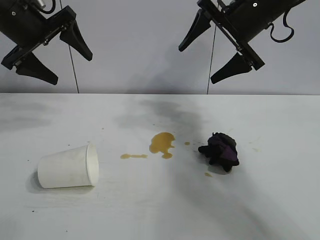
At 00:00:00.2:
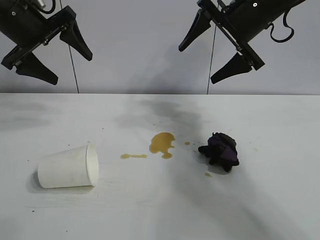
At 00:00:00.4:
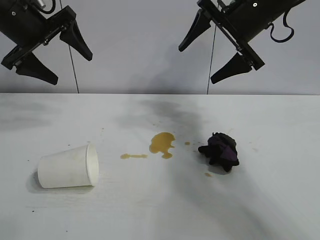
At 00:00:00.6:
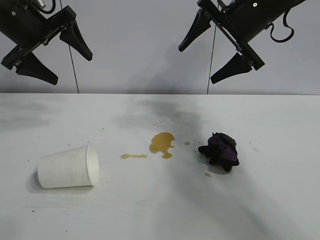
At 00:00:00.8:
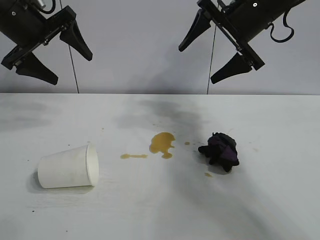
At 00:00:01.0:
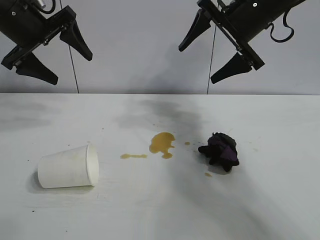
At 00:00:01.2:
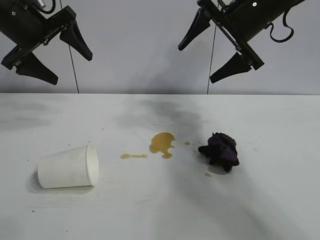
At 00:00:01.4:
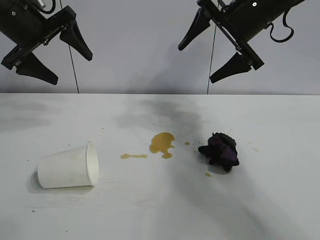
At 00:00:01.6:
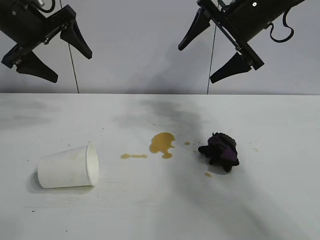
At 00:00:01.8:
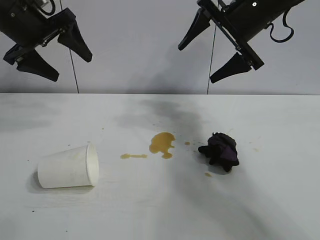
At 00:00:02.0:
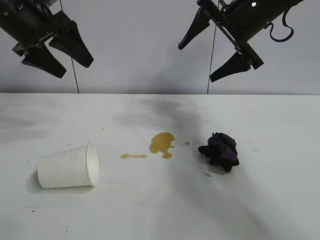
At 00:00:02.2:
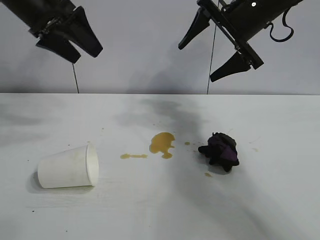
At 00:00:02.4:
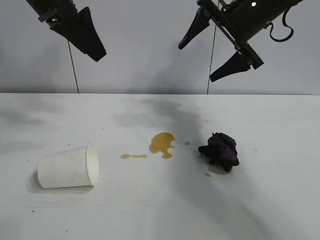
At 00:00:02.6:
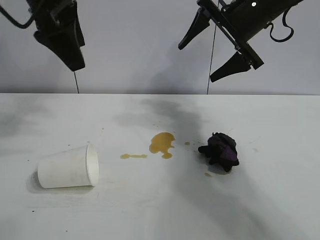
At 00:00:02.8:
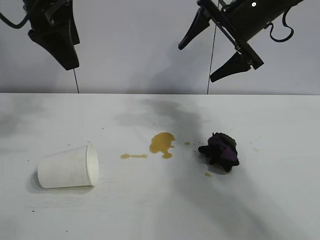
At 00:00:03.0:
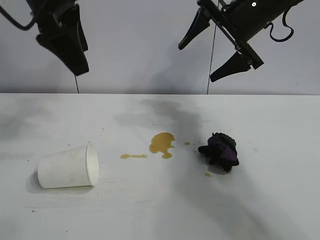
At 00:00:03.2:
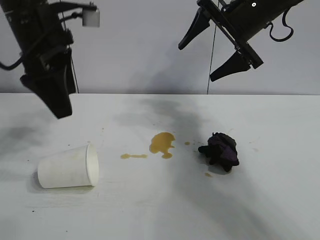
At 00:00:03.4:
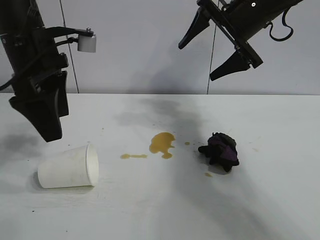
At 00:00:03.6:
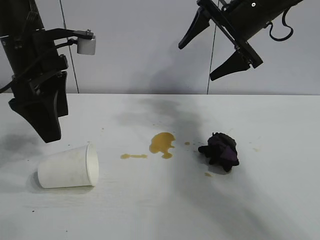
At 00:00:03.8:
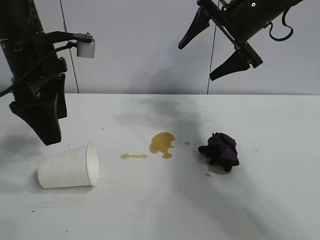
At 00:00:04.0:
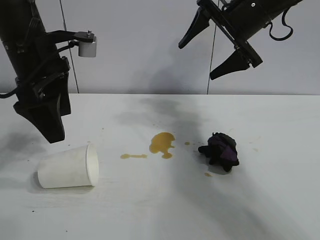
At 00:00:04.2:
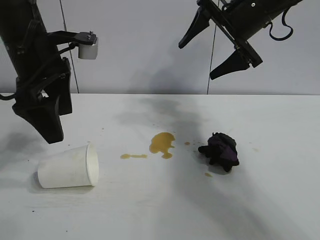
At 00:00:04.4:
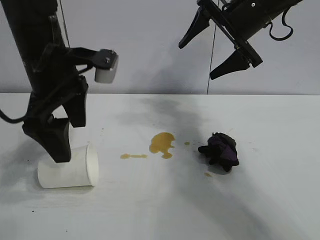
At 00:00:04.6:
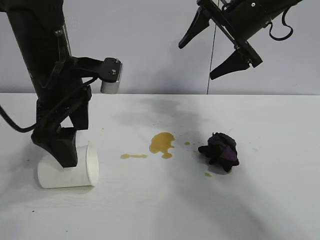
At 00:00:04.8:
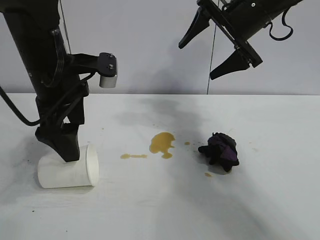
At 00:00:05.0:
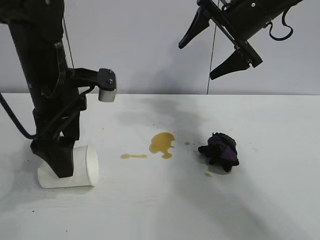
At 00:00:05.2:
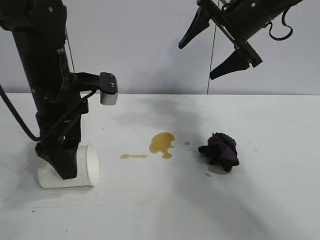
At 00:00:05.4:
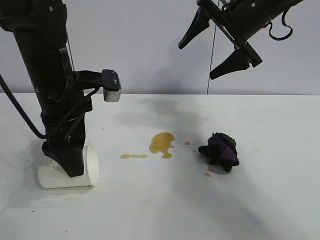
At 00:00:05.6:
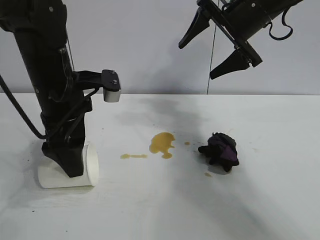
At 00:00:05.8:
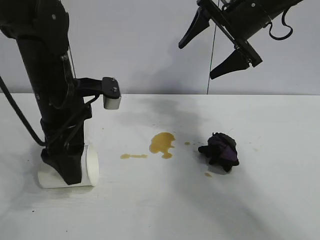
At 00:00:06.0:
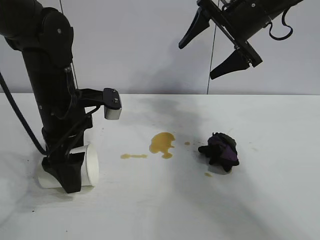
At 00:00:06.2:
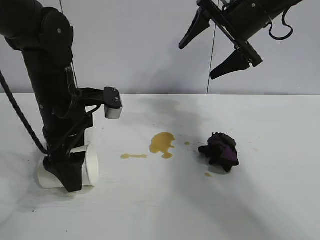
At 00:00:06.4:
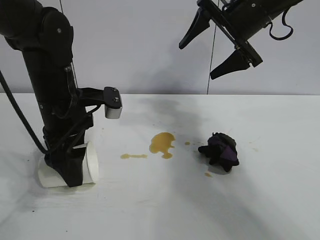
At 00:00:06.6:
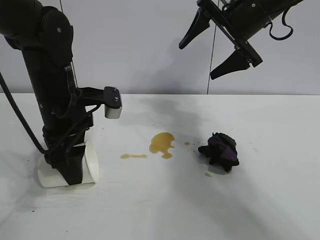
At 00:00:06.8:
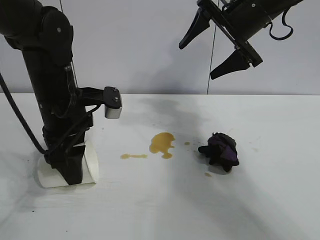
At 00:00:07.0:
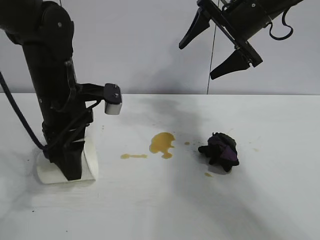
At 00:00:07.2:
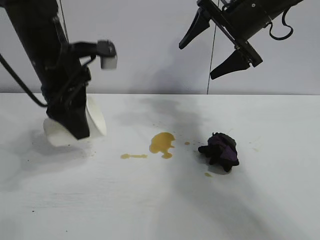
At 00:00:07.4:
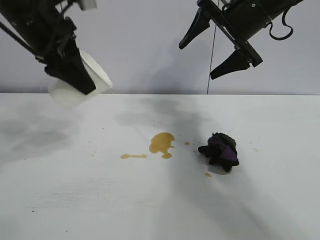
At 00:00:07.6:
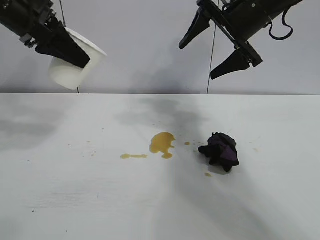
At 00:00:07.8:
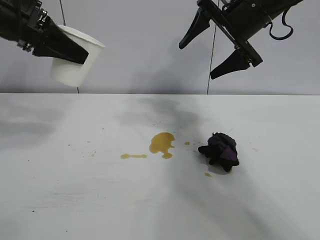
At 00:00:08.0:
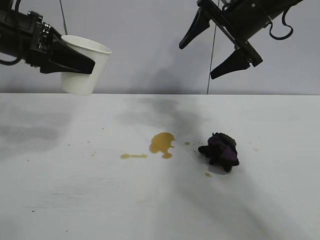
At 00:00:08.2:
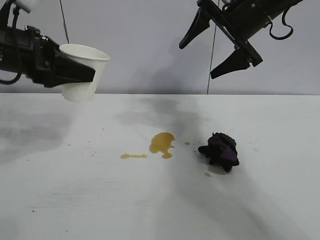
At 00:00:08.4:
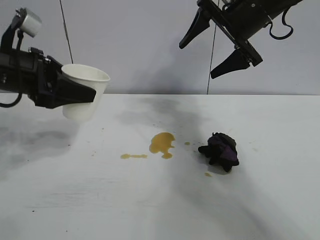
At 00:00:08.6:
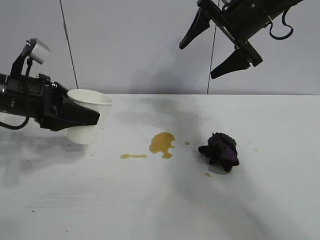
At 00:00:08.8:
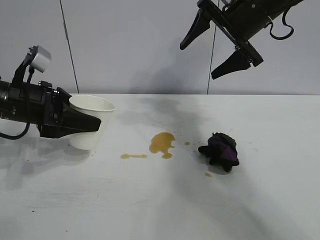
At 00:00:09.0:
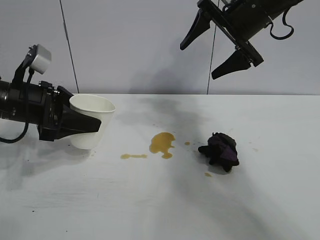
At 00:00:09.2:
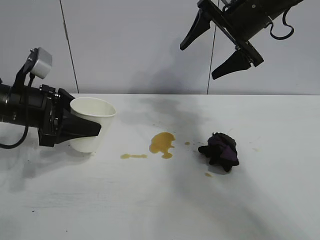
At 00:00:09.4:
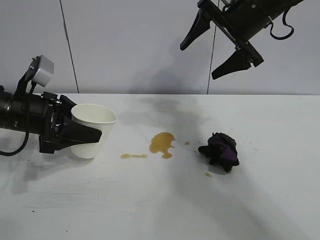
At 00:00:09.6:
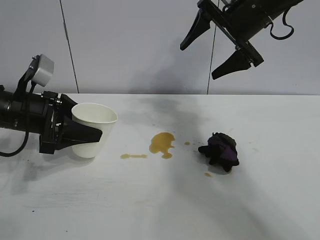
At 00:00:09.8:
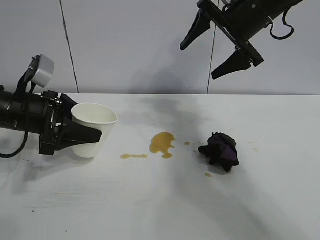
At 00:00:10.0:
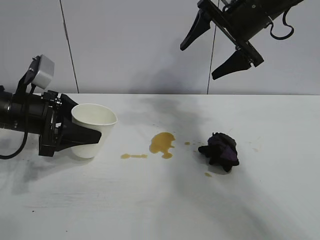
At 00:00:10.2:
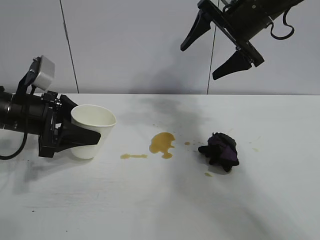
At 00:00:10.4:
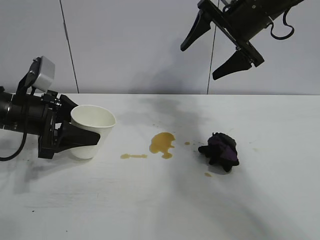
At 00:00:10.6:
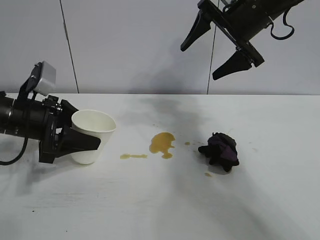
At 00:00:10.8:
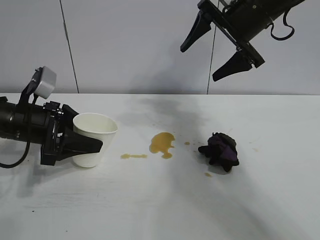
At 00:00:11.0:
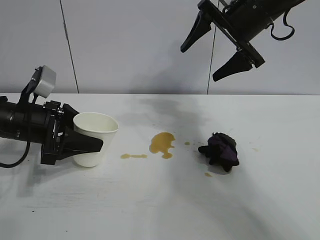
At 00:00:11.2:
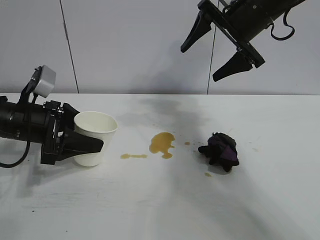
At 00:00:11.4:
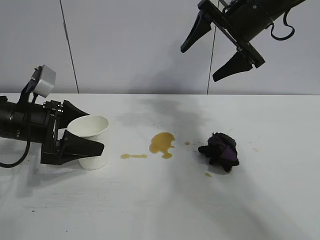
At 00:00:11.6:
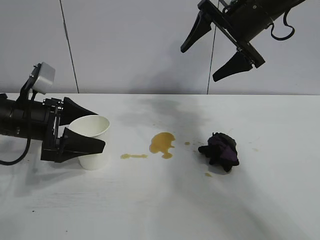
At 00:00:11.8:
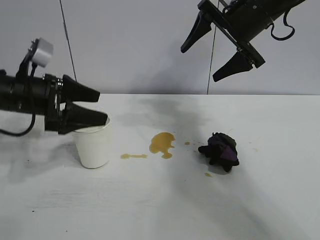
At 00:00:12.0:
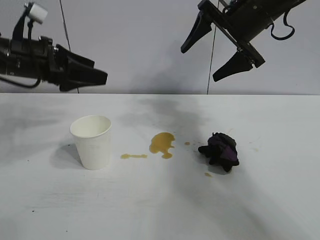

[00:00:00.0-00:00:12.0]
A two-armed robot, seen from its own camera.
Task of the whole recording: the left gripper pick up the fallen cup and place it upright, the right gripper grasp the black rag and wipe the stain on the table, the right gripper put the black rag back in its original position.
Step, 00:00:01.0 to 00:00:06.4: Grasp the paper cup with left gripper.
Step, 00:00:06.8 to 00:00:11.2: Stand the paper cup upright with left gripper.

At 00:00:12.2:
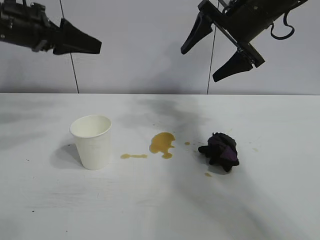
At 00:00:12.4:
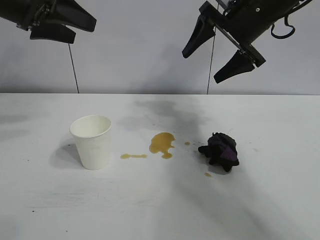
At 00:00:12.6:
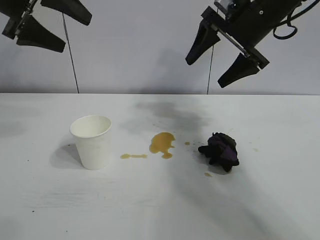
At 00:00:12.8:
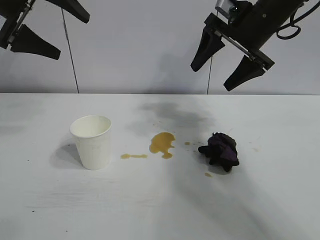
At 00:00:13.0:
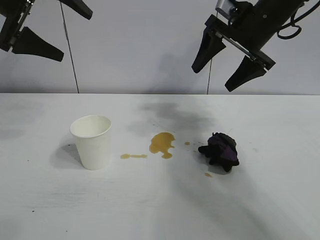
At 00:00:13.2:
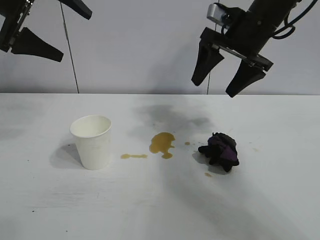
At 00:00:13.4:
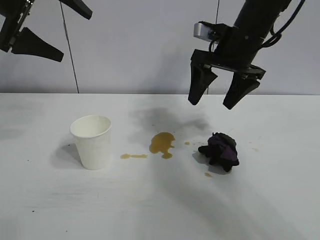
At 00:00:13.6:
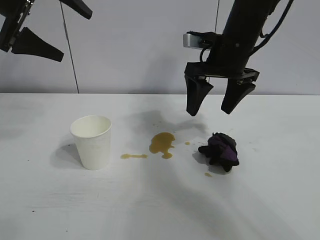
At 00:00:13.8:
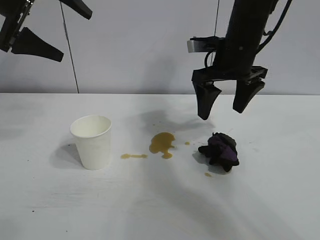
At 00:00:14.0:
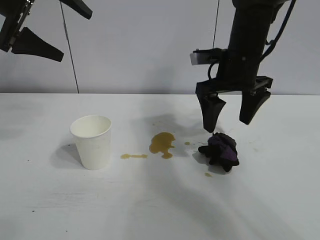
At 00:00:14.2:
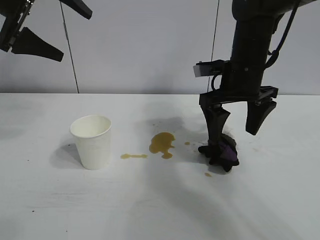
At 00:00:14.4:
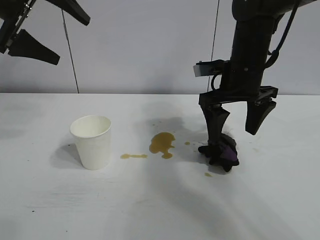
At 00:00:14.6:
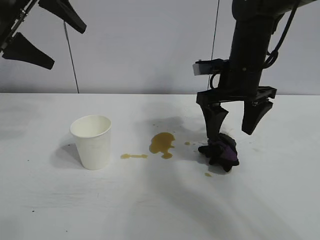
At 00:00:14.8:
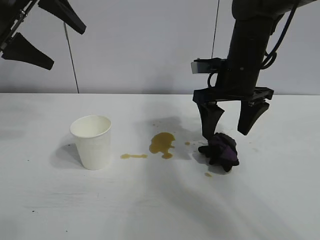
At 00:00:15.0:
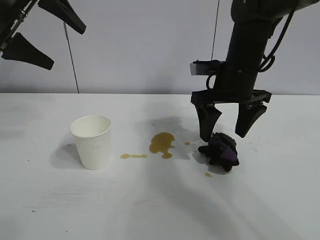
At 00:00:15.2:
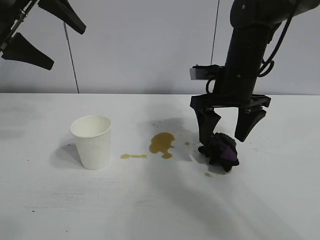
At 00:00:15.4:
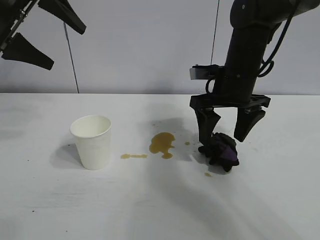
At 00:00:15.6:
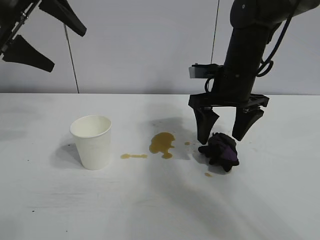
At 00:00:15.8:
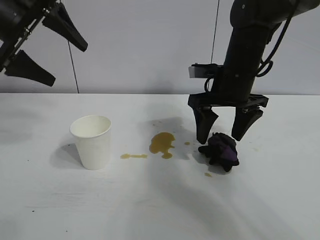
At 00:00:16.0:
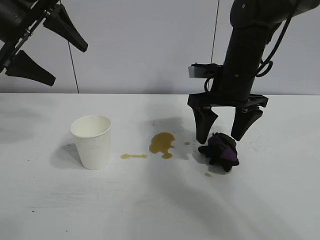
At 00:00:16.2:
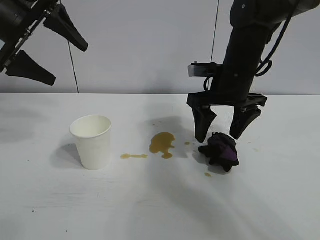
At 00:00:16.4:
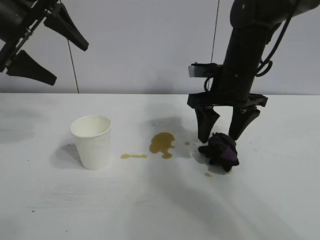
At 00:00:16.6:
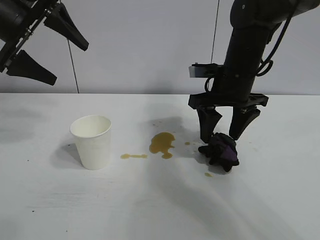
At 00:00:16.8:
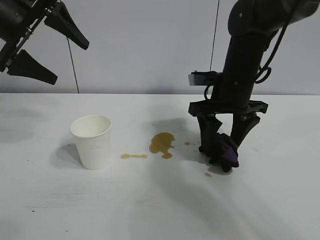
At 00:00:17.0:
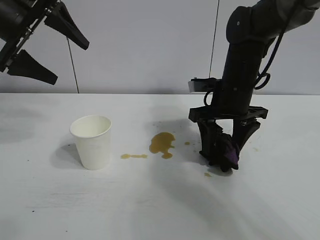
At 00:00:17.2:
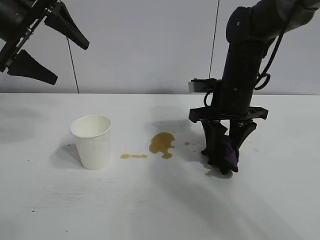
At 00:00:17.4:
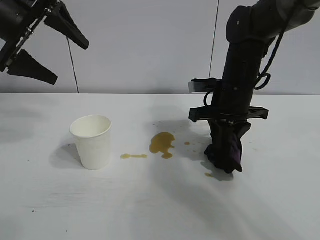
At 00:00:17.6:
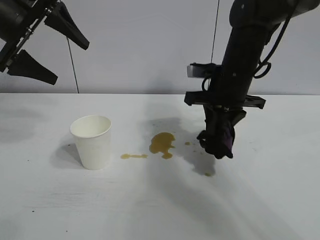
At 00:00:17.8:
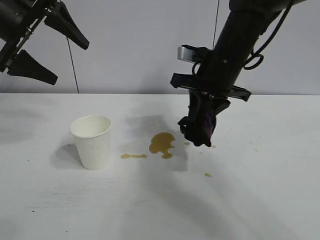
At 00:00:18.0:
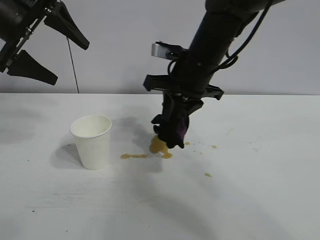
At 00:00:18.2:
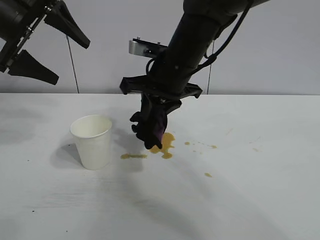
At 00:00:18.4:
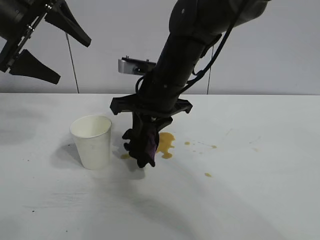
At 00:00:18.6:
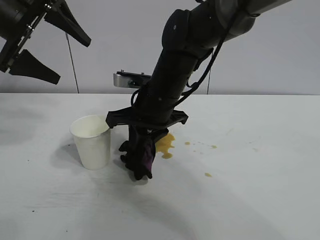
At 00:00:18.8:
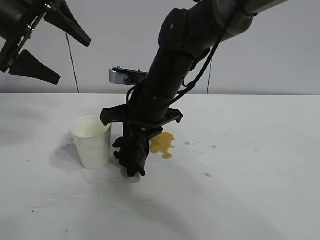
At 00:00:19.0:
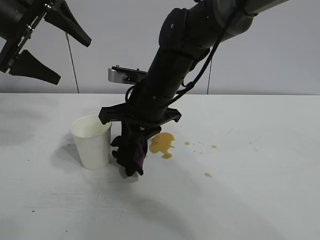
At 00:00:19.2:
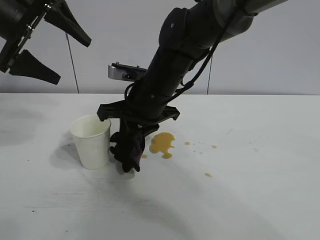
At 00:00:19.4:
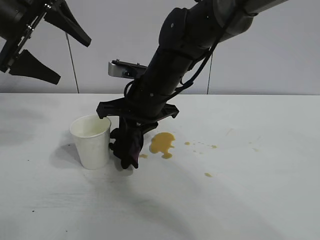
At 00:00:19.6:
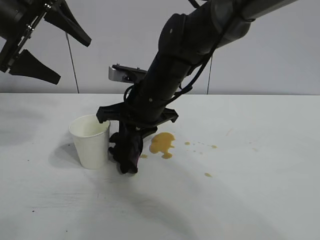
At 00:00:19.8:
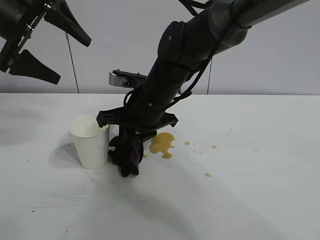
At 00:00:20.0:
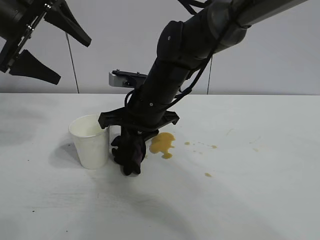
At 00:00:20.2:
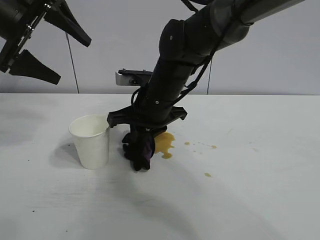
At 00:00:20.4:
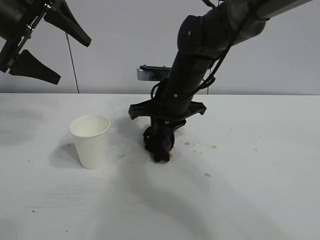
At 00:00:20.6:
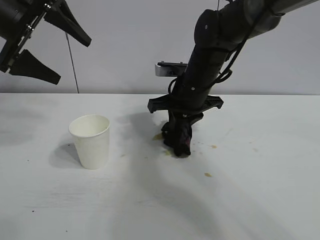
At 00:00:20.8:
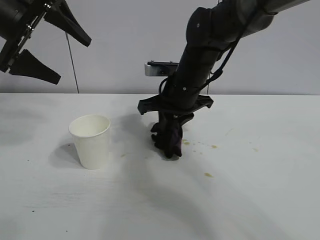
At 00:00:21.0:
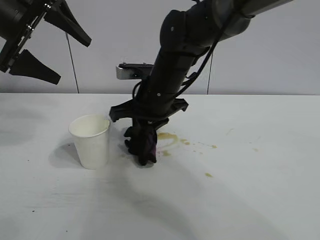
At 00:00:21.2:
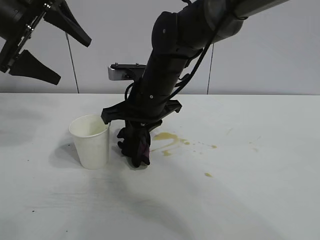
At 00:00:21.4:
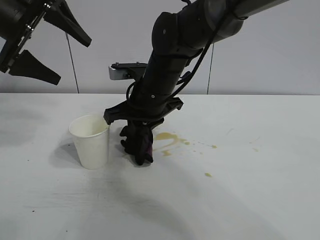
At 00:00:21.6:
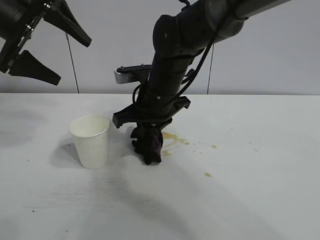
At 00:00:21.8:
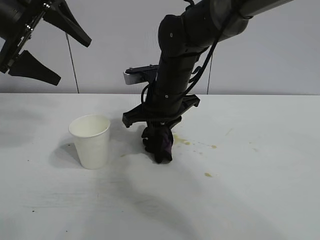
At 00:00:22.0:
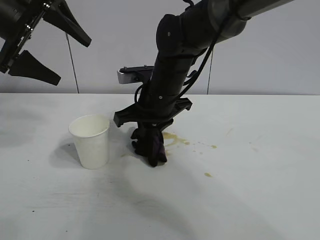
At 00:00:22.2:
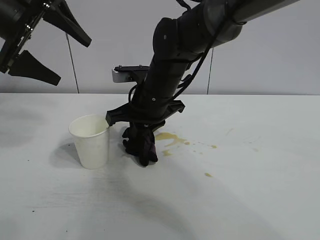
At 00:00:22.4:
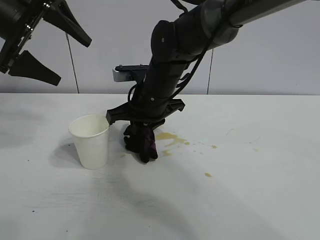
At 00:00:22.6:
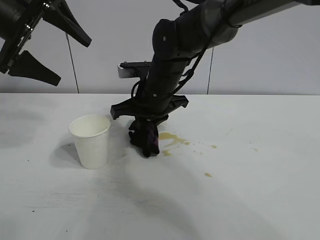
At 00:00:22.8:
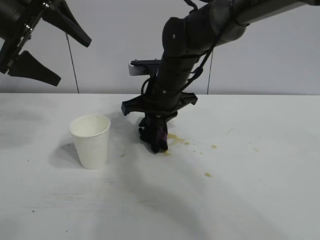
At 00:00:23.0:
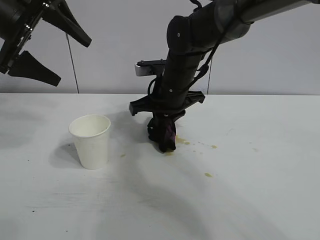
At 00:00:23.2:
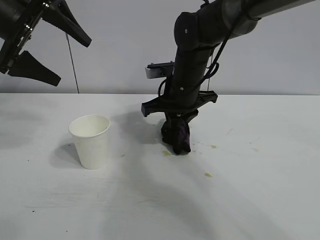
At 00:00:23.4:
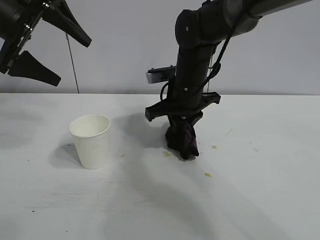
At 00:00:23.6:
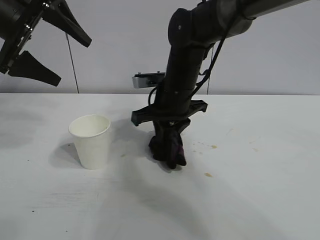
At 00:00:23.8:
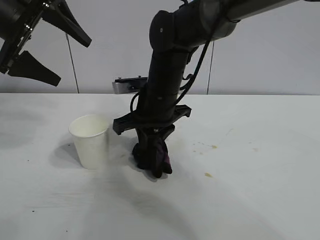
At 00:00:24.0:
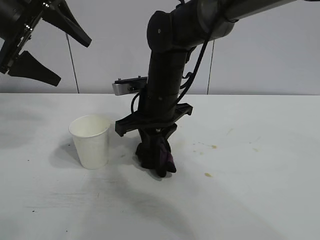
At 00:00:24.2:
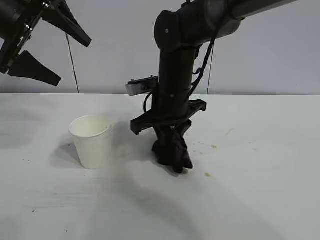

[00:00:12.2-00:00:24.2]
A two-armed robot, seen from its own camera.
Task of the whole recording: the left gripper pick up the fallen cup and place it upright, the right gripper grasp the black rag and wipe the stain on the table, the right gripper put the black rag back in its original position.
Step, 00:00:12.2 to 00:00:17.2: Grasp the rag with right gripper.
